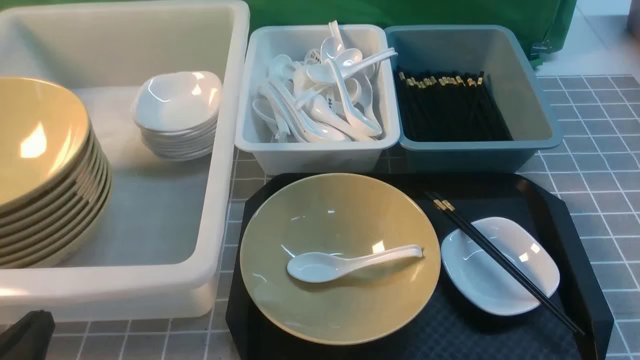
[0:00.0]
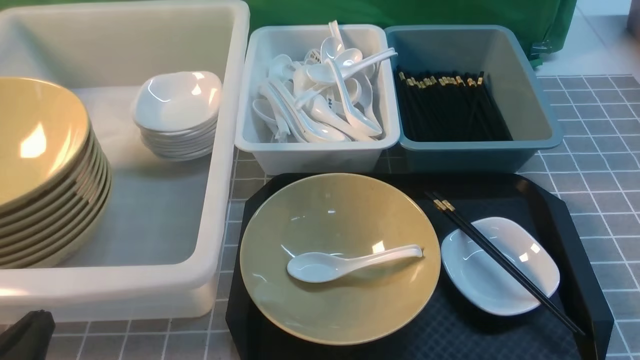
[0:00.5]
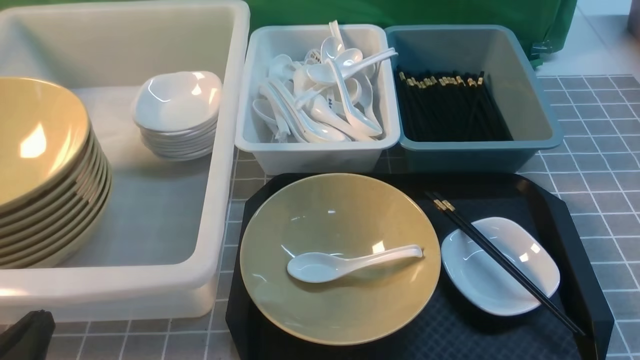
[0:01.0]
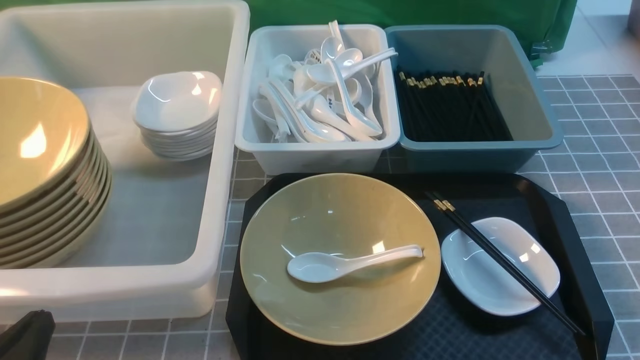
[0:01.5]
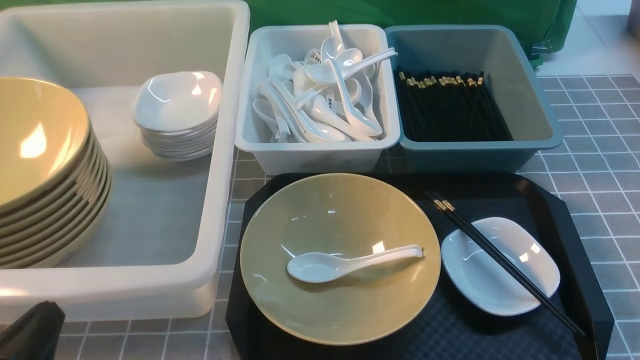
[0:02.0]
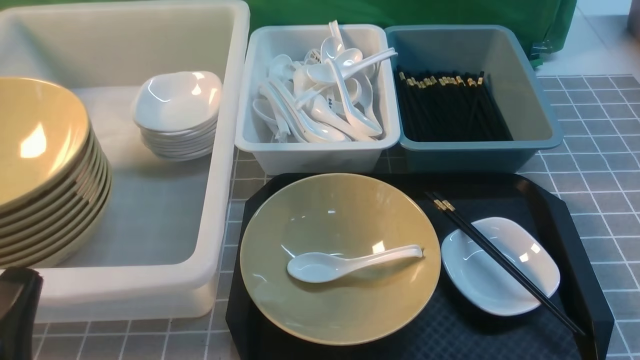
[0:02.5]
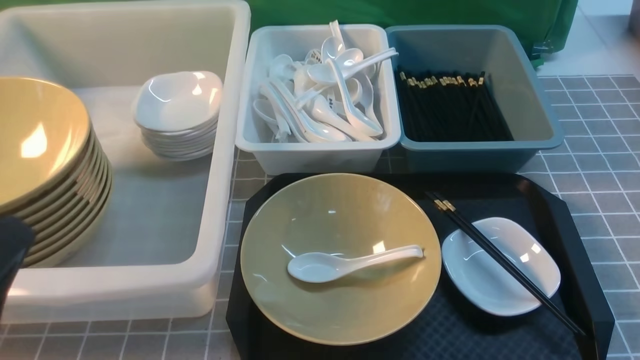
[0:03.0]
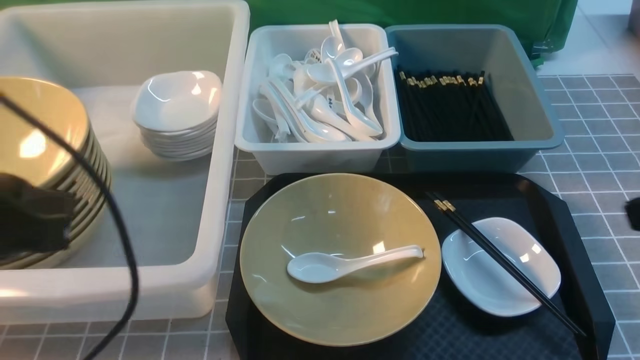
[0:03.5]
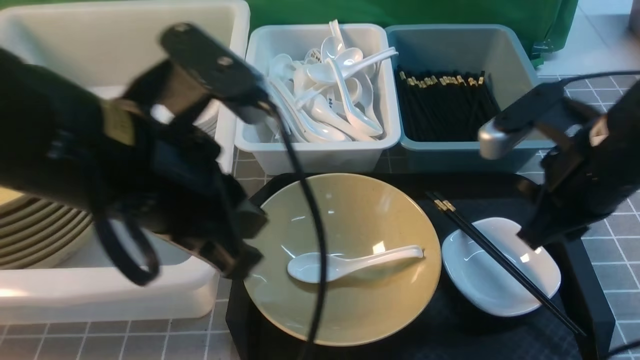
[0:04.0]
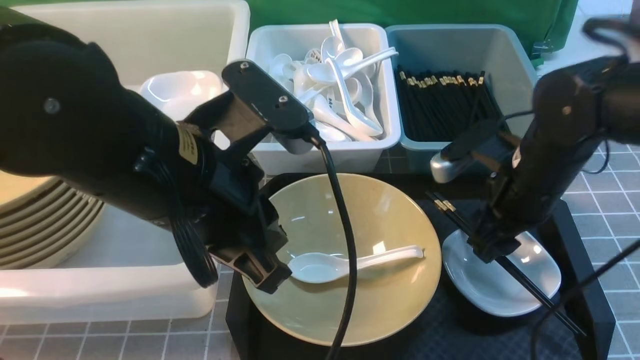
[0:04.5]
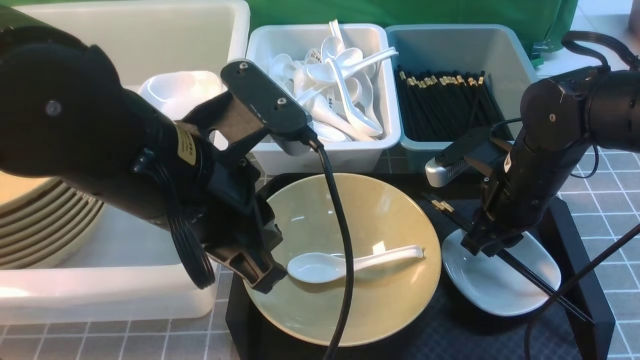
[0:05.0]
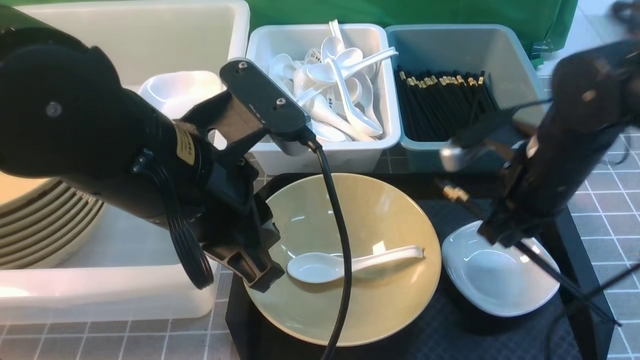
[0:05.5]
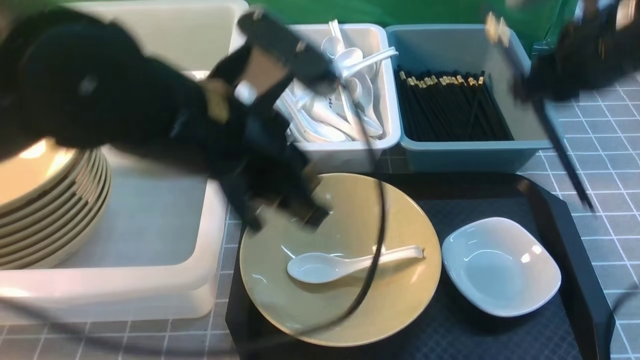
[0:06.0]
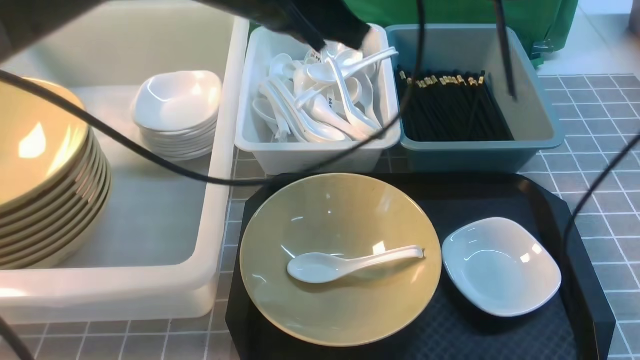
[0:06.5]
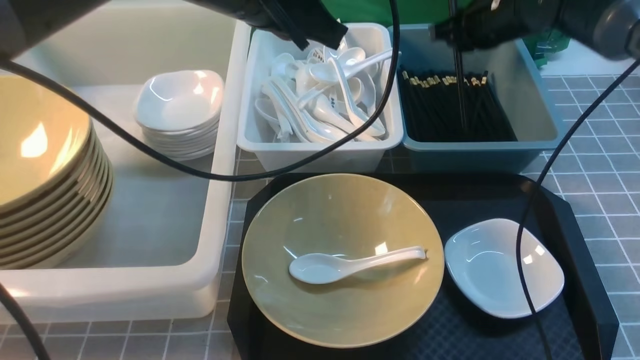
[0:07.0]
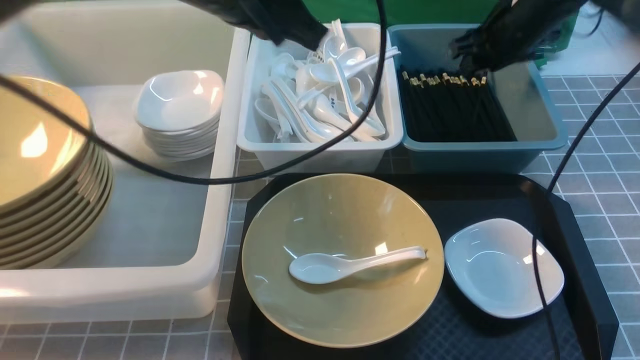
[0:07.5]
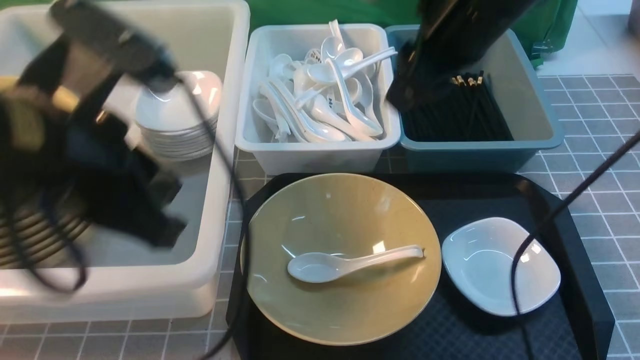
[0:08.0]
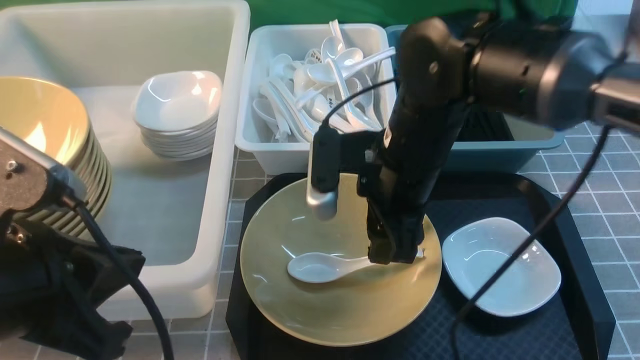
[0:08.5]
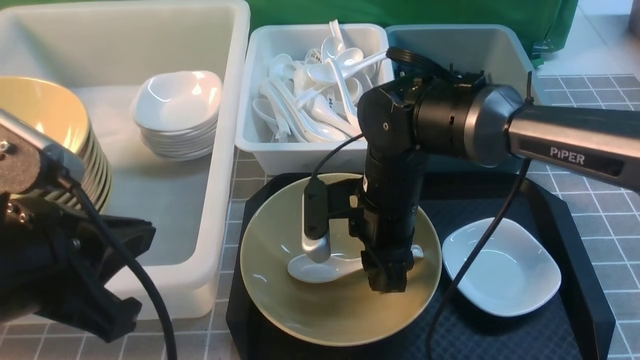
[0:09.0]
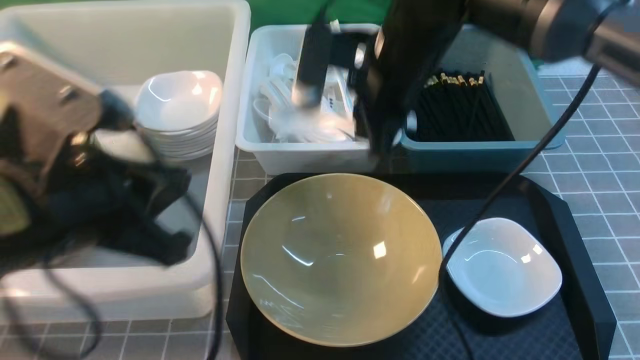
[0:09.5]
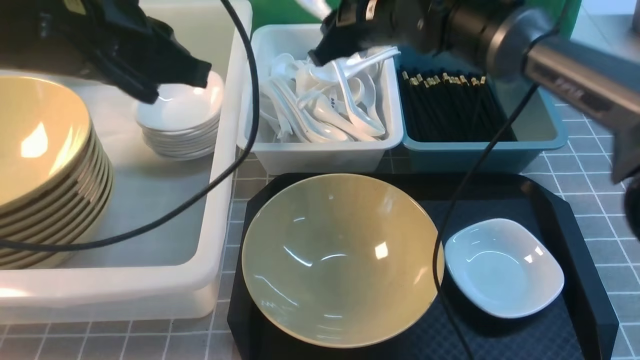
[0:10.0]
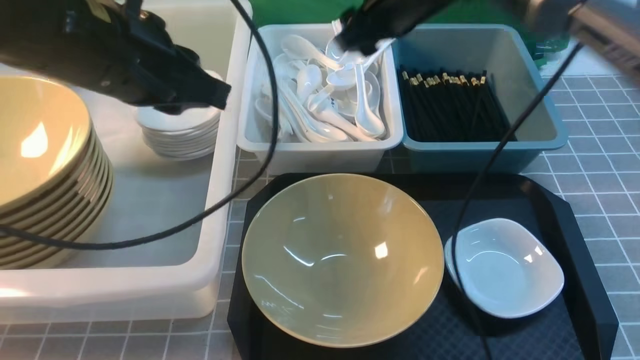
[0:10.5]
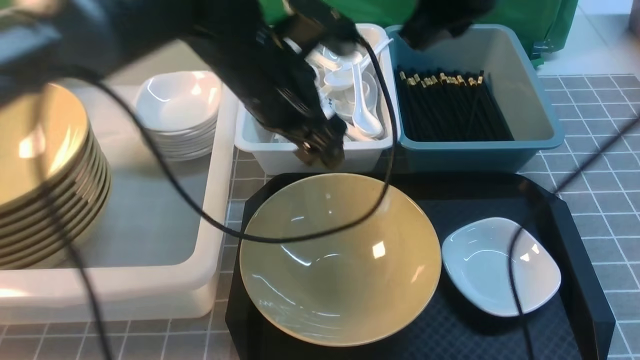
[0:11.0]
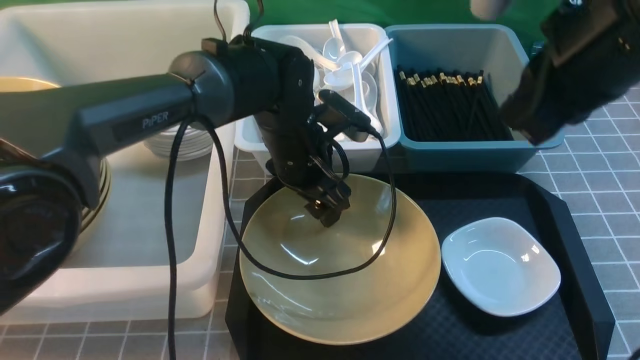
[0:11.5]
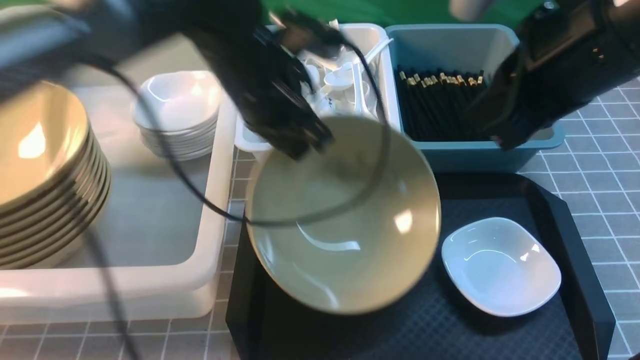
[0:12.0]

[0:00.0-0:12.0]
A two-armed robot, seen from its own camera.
Task of the whole recording: on grey table put chopsticks spoon bowls plates into blue grey white boxes.
Step, 0:00.0 to 0:05.5: use the right arm to grab the chopsticks.
Step, 0:06.0 to 0:07.0: use the right arm to put the chopsticks into the small storage box on the right.
Step, 0:07.5 to 0:09.0: use the right arm to grab the soup spoon in the middle.
Step, 0:09.5 to 0:10.0: use the right arm to put the soup spoon into the small storage box in the middle.
Step, 0:10.5 to 0:11.5: use the left arm to grab the yellow noodle bowl on the left.
0:02.0 to 0:04.0: The left gripper travels upward, forward and to the right by some 25 cm. Meanwhile the right gripper travels forward, upward and to the left by about 25 cm.
0:04.0 to 0:06.0: The right gripper goes some 5 cm forward, reaches about 10 cm downward, then returns, and opens, then closes again. The left gripper travels to the right by approximately 5 cm.
0:06.0 to 0:08.0: Both grippers travel together to the left, approximately 10 cm. The right gripper travels forward and back again, about 20 cm each way, and opens up. Meanwhile the left gripper moves roughly 10 cm forward and comes back.
0:08.0 to 0:10.0: The left gripper moves forward, roughly 5 cm. Meanwhile the right gripper travels forward, to the left and downward by roughly 15 cm.
0:10.0 to 0:12.0: The right gripper heads backward, upward and to the right, covering roughly 25 cm, and closes, while the left gripper heads to the right, forward and downward, covering about 15 cm, and opens, then closes again.

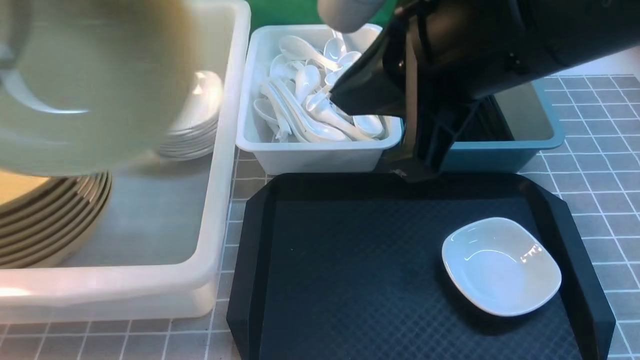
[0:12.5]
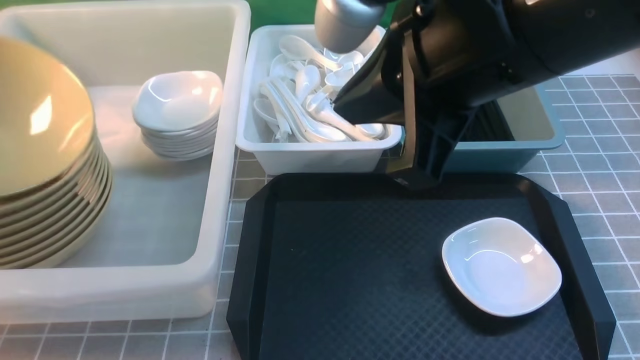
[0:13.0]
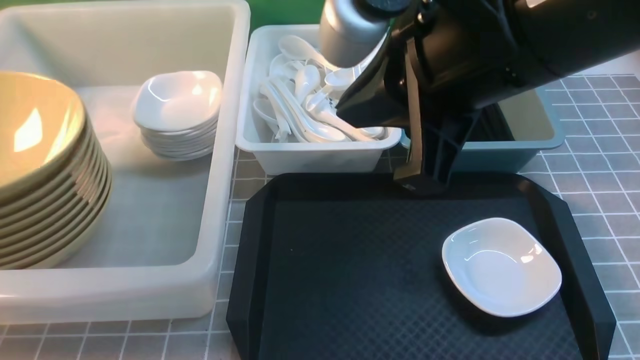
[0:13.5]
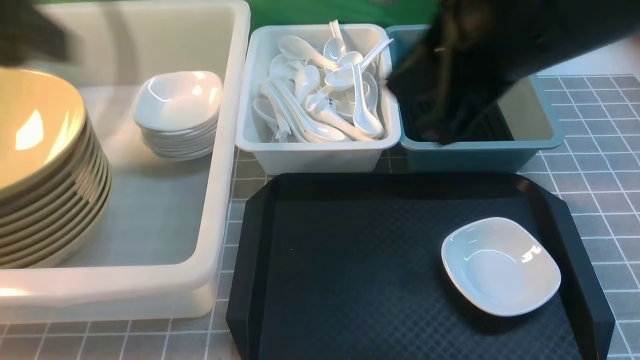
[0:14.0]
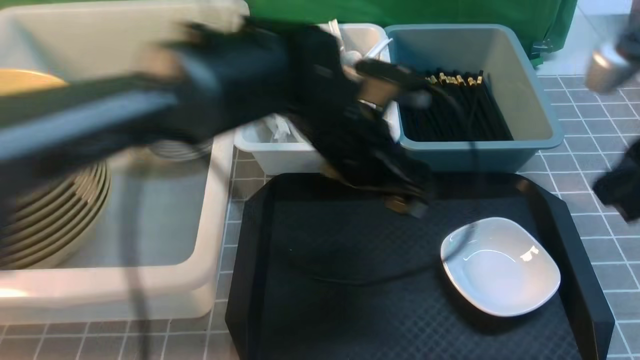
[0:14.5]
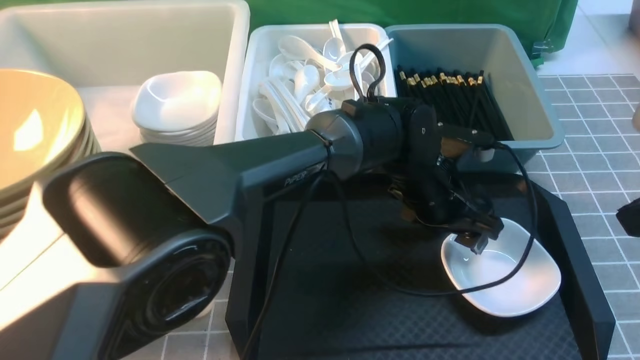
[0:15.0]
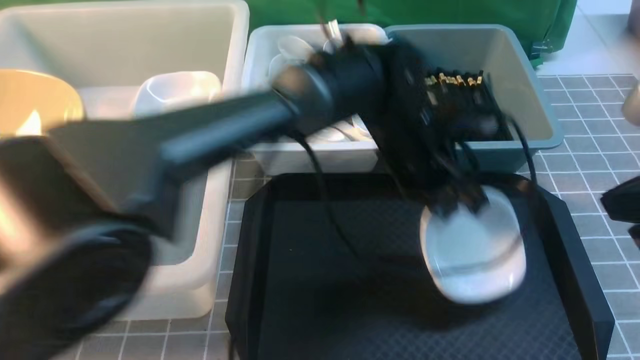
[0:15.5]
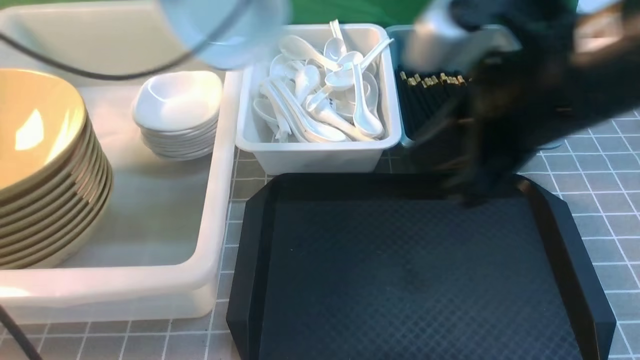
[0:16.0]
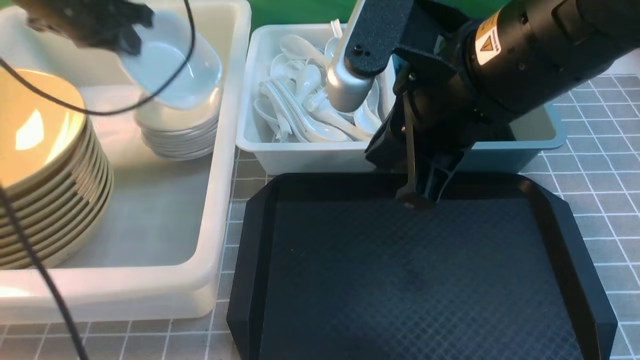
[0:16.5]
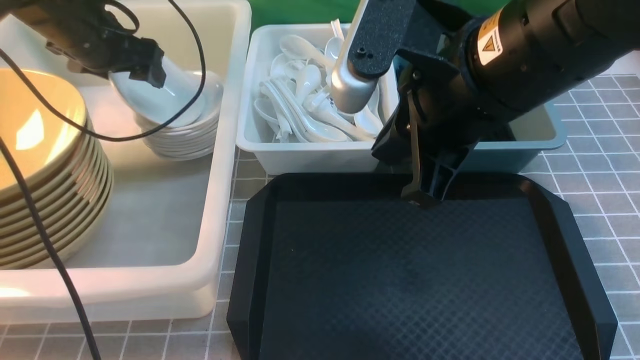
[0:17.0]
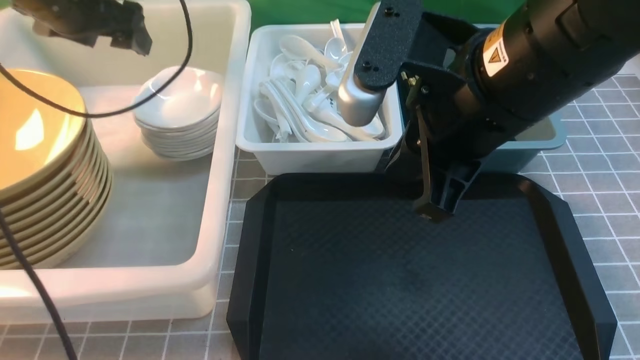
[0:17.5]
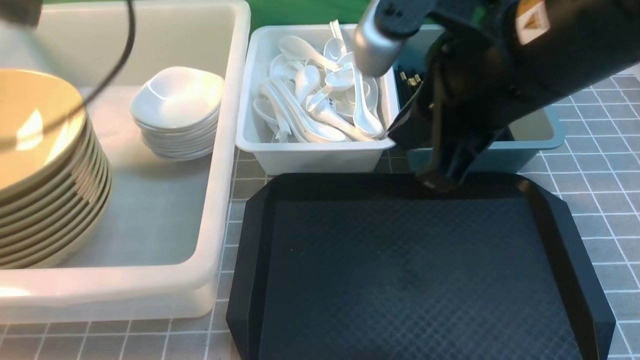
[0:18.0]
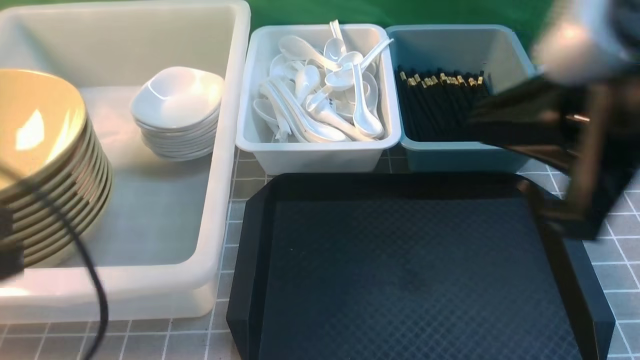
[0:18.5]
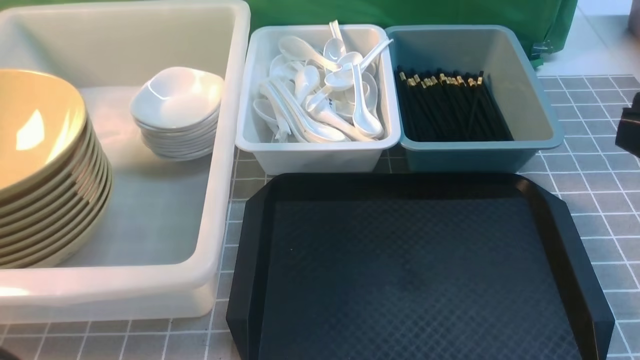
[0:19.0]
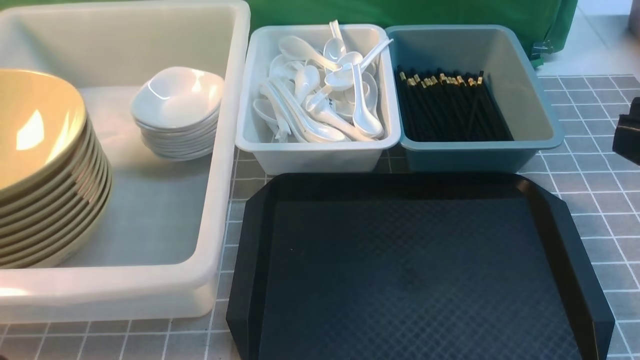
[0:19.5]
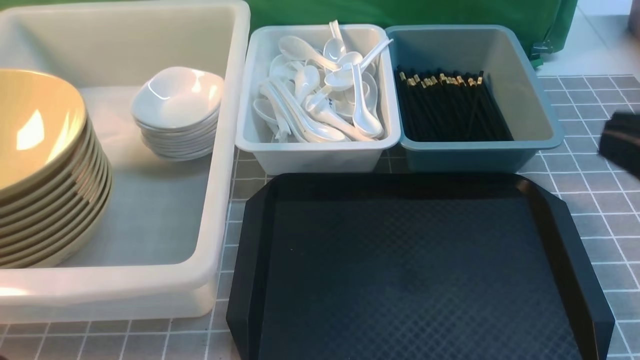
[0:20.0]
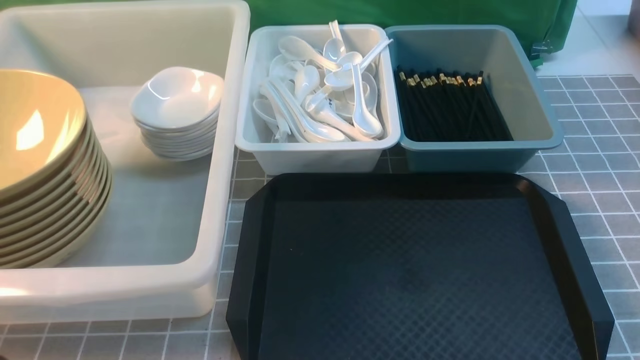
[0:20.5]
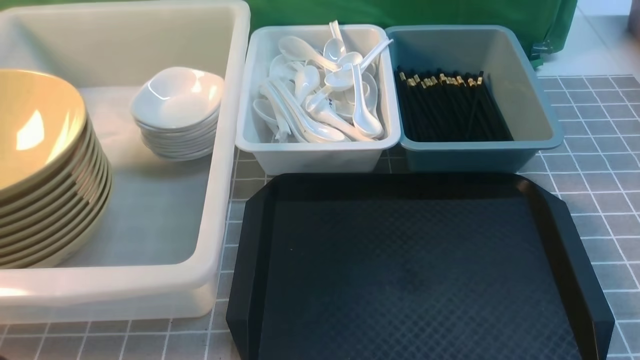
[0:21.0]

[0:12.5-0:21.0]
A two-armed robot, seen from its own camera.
Task of the whole recording: on grey table put chopsticks spoon bowls plates into blue grey white boxes.
Step, 0:12.5 to 0:13.5: use the left arm to put the noodle bowl into the large storage box on the left.
Step, 0:14.0 to 0:15.5: use the left arm to grab the plate.
Step, 0:16.0 to 0:17.5: use the left arm to put the plate into the large storage box on the left.
0:12.5 to 0:14.5: The left gripper travels to the right and downward by some 30 cm, and opens up. Meanwhile the right gripper goes some 15 cm to the right and downward.
0:14.5 to 0:16.5: The left gripper heads to the left and forward, covering some 30 cm, and closes its fingers. Meanwhile the right gripper travels to the left by some 15 cm.
0:16.5 to 0:19.0: The right gripper moves backward and to the right, some 20 cm, while the left gripper moves backward, roughly 40 cm, and opens, then closes again.
